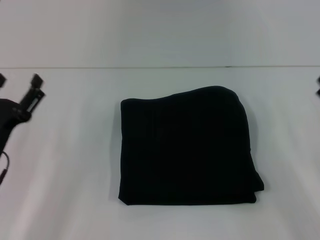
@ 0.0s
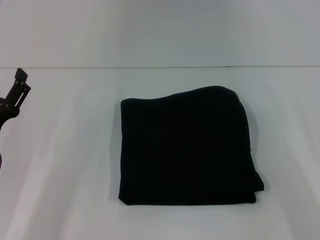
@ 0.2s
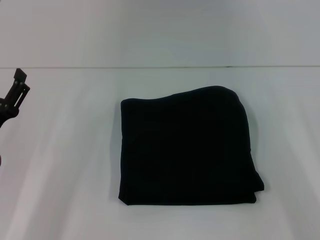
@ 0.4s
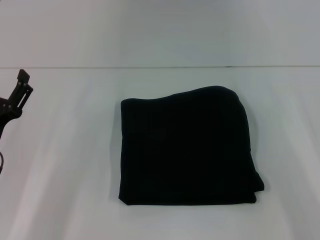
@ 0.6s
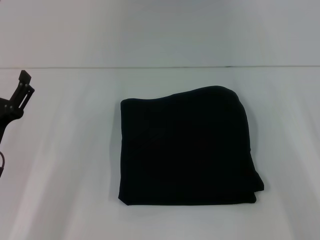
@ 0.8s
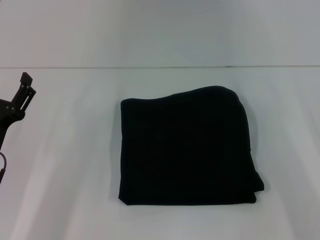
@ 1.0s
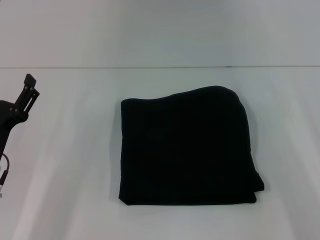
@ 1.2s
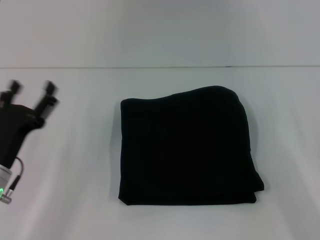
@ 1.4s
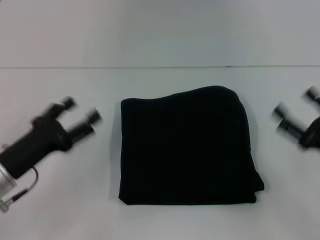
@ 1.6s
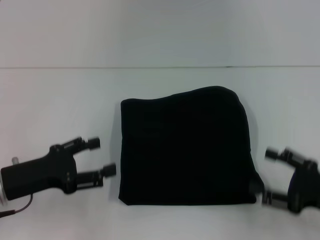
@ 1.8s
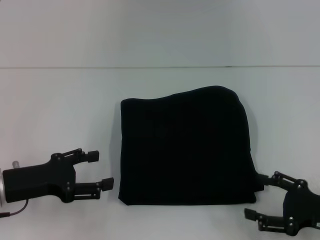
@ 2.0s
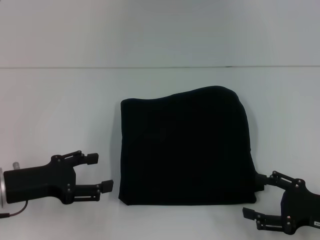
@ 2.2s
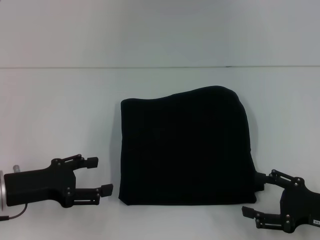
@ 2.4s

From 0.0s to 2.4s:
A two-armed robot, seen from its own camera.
From 0.0s to 1.2s: The grippers move only a little.
From 1.2s to 2.4s: The right gripper ends up about 5 cm from where it was.

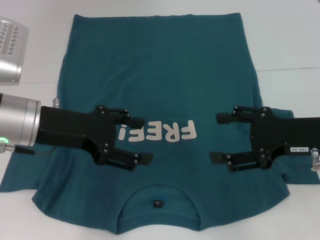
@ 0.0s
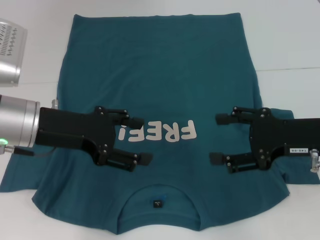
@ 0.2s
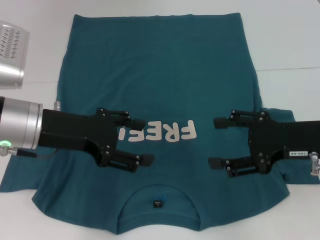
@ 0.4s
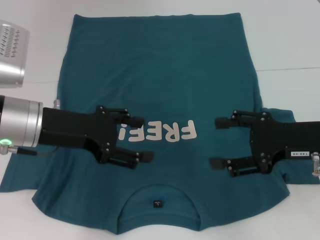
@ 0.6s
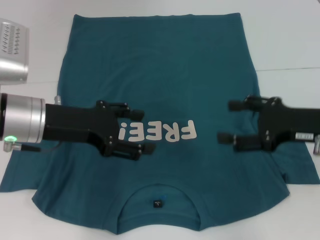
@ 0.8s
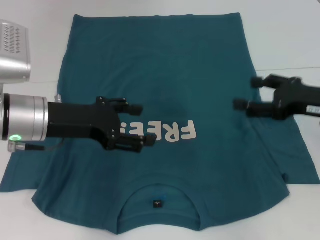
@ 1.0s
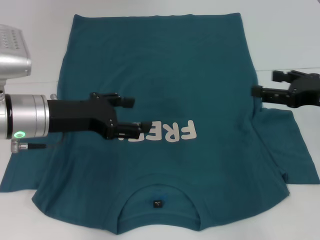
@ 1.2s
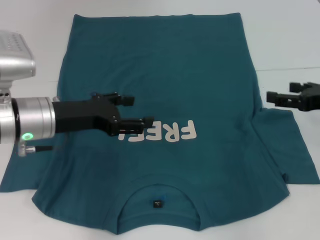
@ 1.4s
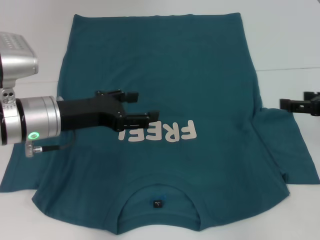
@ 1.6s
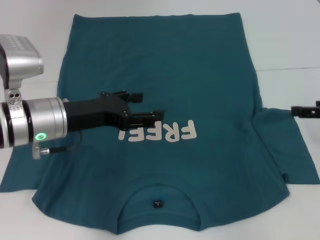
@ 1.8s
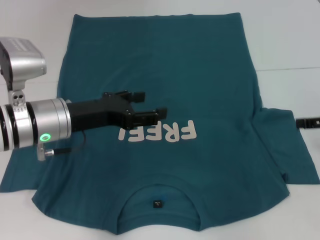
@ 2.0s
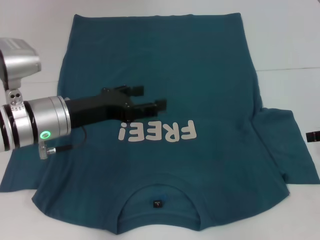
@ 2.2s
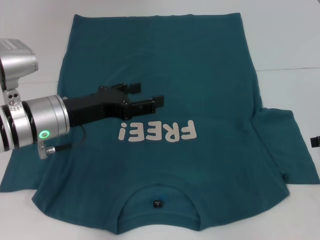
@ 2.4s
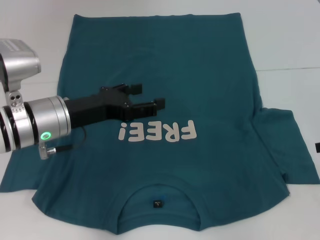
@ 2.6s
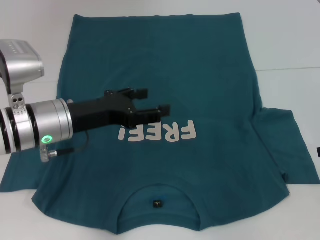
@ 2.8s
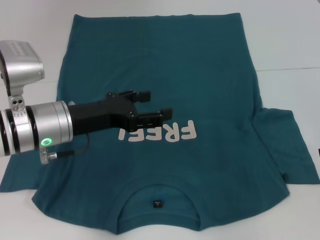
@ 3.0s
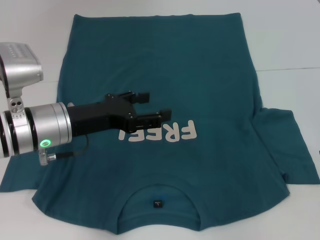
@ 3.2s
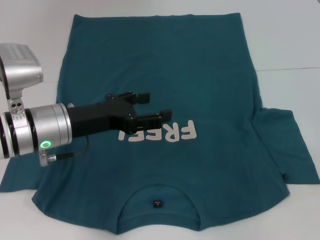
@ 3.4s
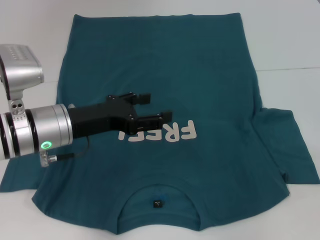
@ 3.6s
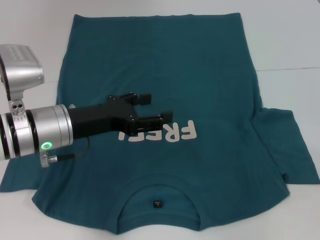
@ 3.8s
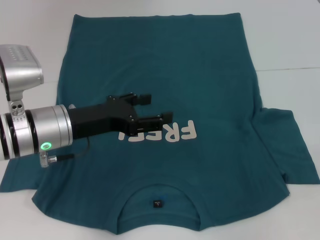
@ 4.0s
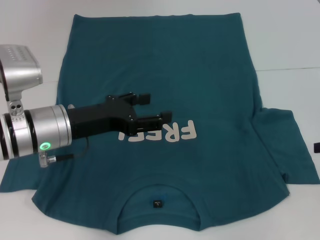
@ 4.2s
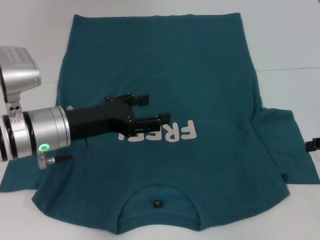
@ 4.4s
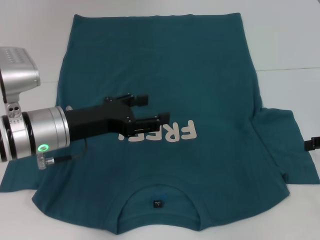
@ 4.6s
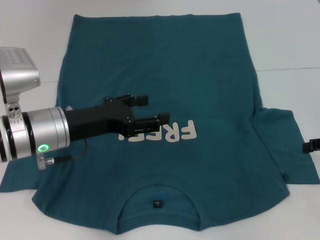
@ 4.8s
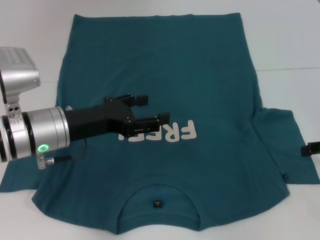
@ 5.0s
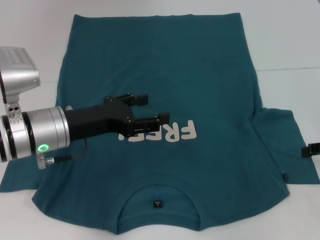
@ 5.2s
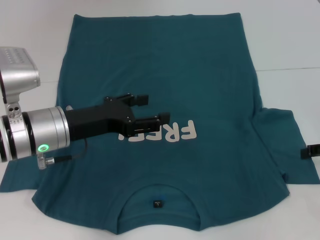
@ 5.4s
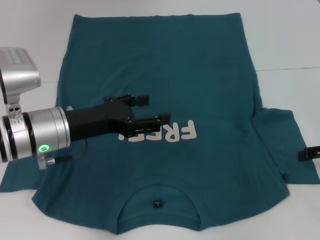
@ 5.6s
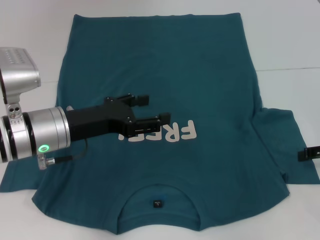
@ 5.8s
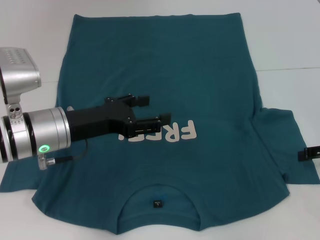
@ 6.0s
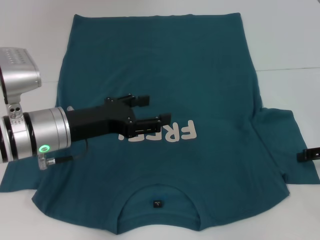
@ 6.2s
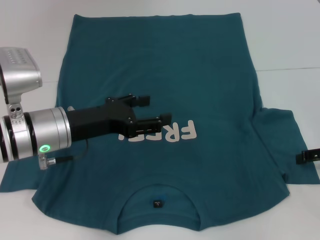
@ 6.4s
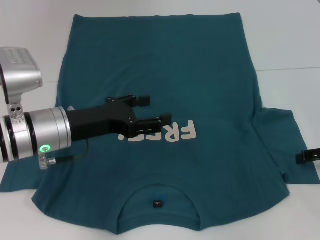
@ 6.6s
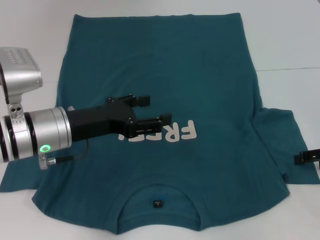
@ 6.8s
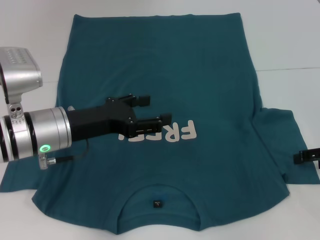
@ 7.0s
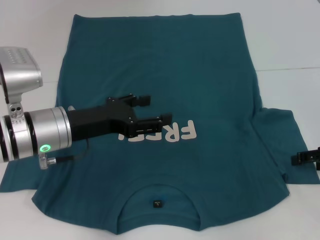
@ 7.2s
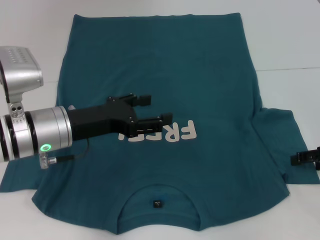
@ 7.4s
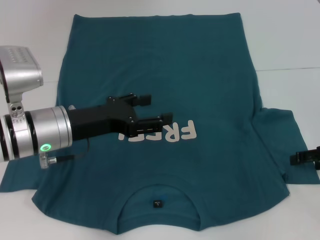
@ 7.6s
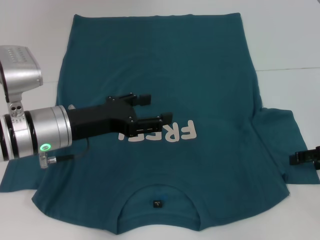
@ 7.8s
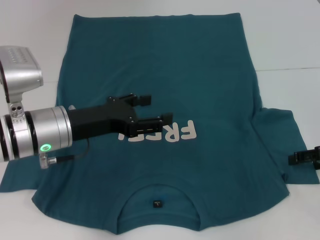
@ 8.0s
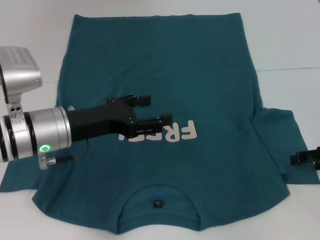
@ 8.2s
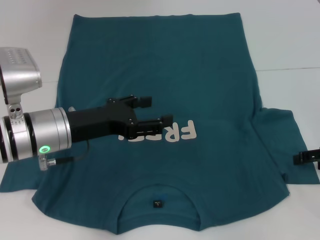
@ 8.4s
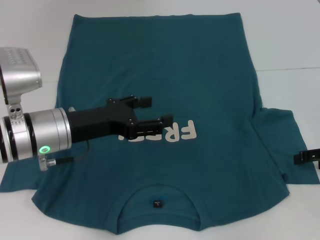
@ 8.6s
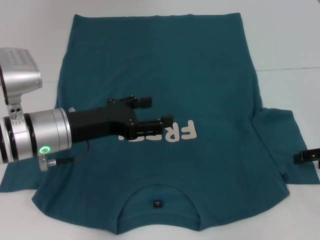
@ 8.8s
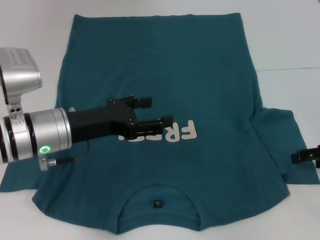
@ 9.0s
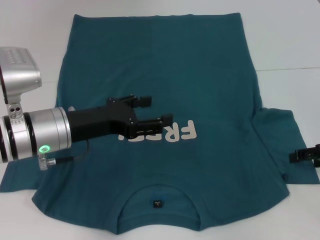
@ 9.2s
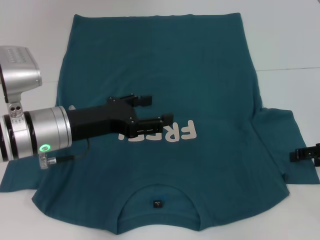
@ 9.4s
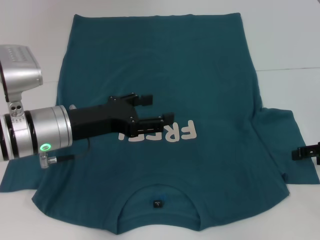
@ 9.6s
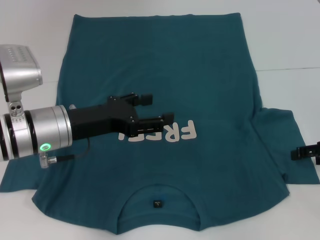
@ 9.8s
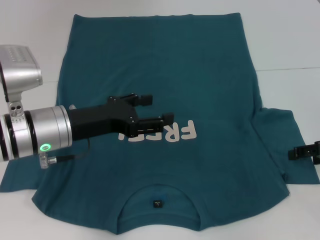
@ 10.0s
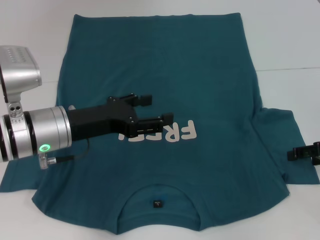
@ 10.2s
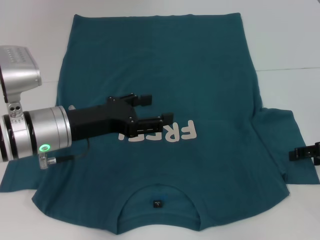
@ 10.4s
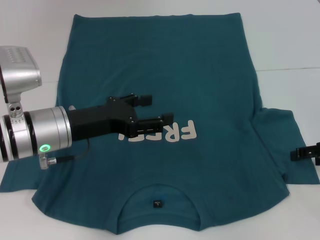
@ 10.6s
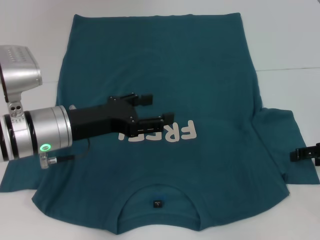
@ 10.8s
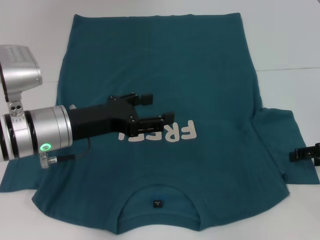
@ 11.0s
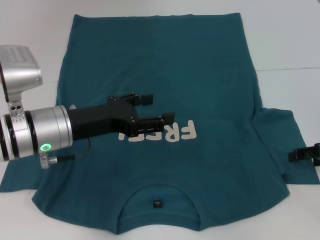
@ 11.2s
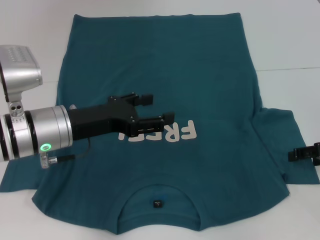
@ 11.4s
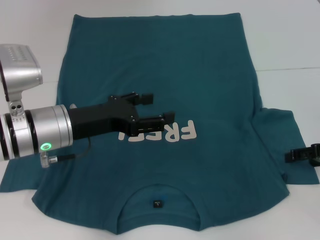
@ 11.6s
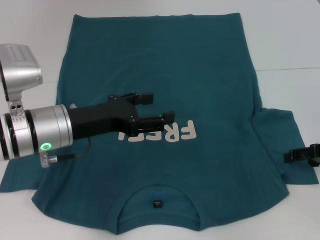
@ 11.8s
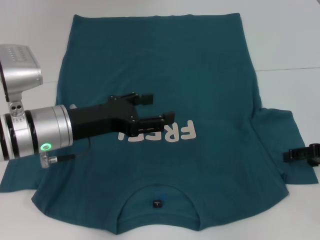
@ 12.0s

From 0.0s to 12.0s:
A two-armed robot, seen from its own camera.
From 0.0s to 1.6s: The right gripper heads to the right, covering some 10 cm.
From 3.0s to 7.6s: There are only small adjustments of the grippers.
From 7.6s to 12.0s: Neither gripper changes place.

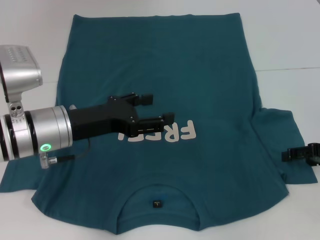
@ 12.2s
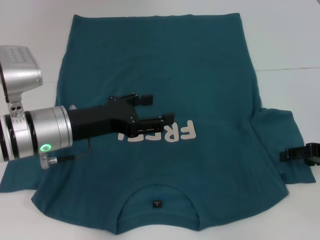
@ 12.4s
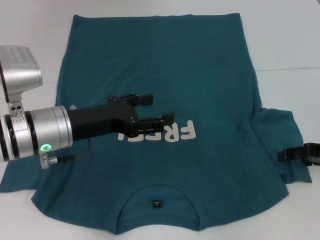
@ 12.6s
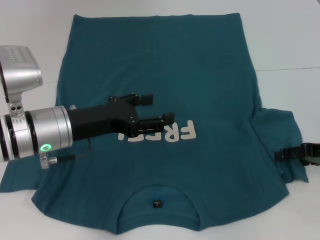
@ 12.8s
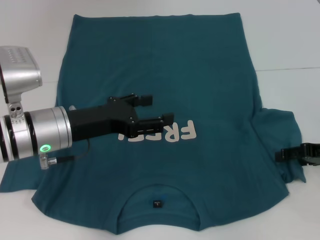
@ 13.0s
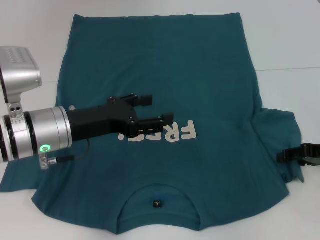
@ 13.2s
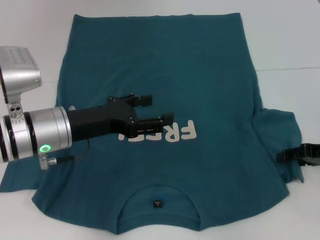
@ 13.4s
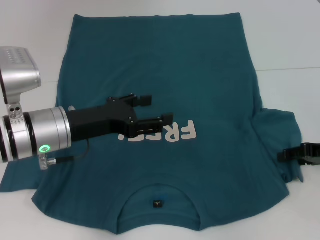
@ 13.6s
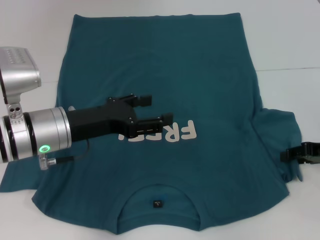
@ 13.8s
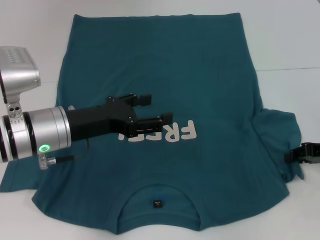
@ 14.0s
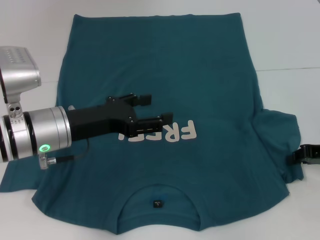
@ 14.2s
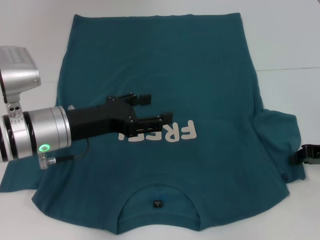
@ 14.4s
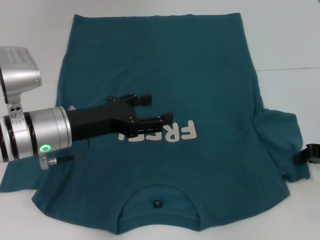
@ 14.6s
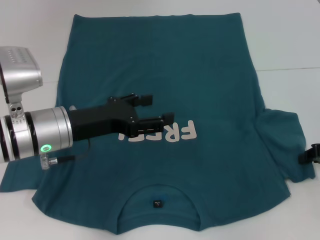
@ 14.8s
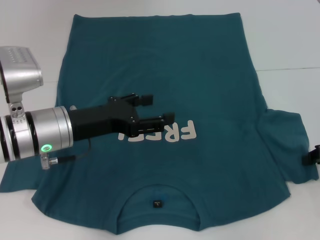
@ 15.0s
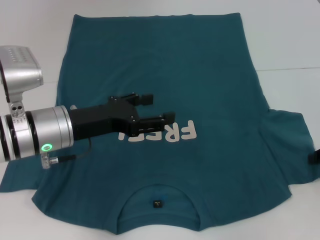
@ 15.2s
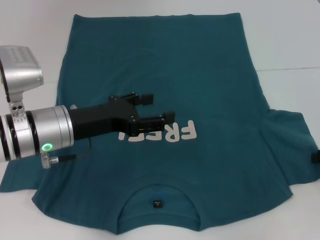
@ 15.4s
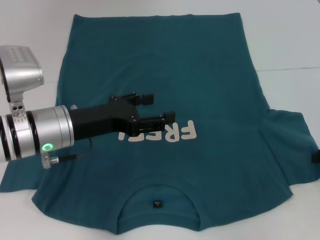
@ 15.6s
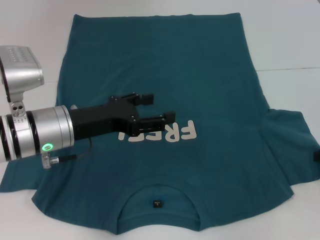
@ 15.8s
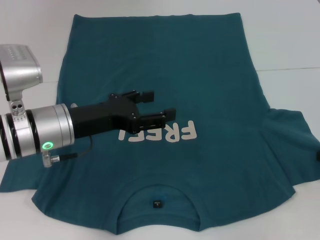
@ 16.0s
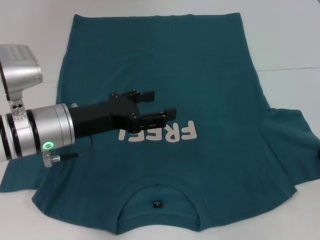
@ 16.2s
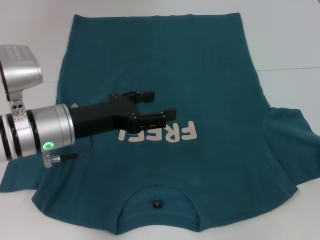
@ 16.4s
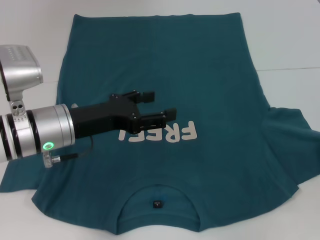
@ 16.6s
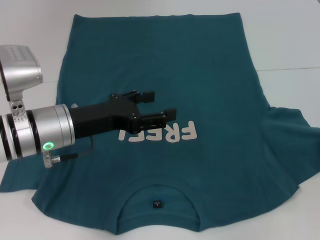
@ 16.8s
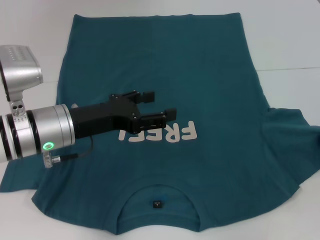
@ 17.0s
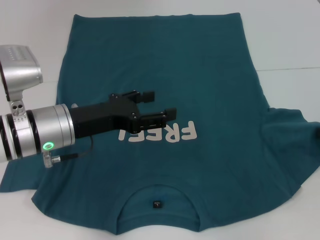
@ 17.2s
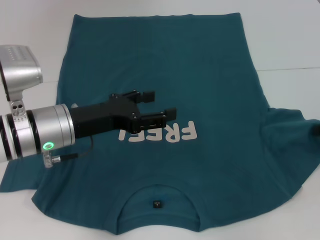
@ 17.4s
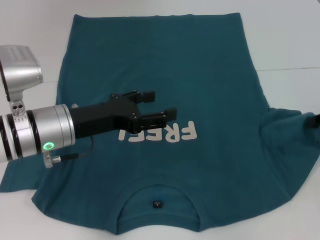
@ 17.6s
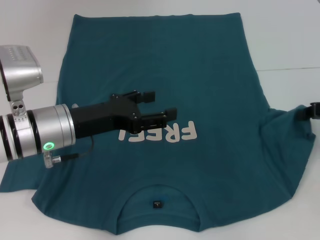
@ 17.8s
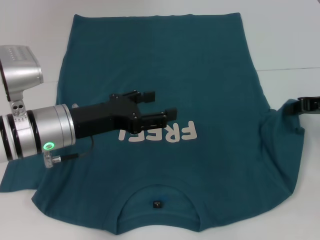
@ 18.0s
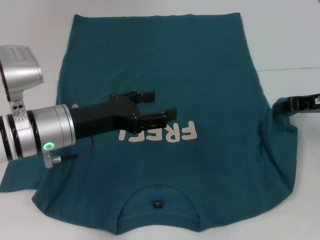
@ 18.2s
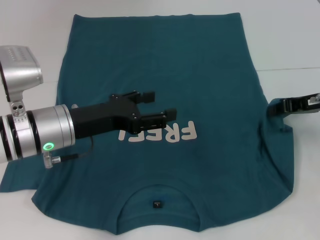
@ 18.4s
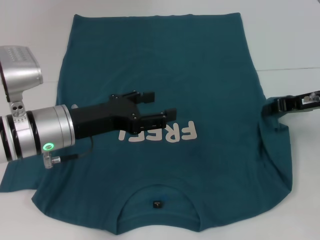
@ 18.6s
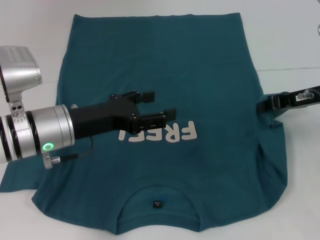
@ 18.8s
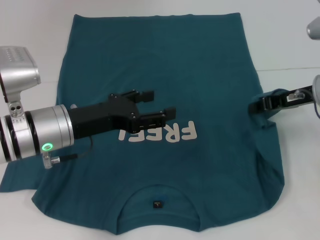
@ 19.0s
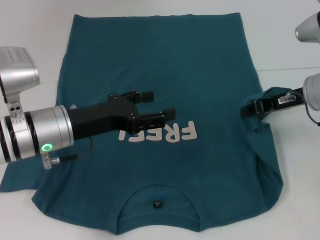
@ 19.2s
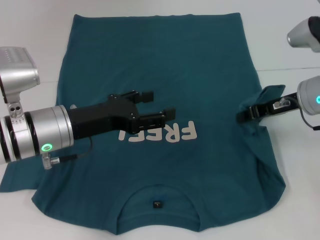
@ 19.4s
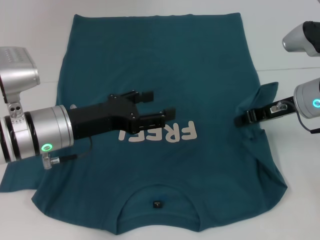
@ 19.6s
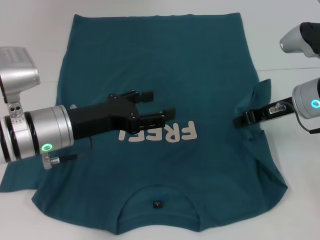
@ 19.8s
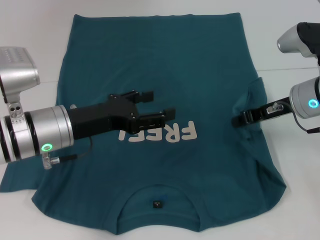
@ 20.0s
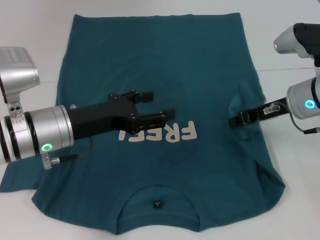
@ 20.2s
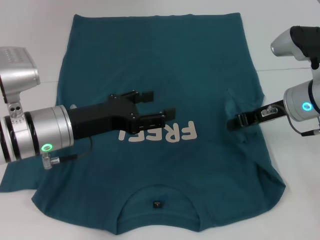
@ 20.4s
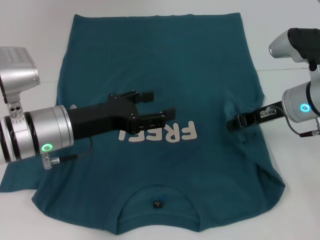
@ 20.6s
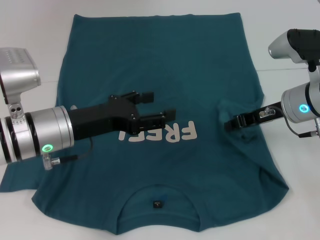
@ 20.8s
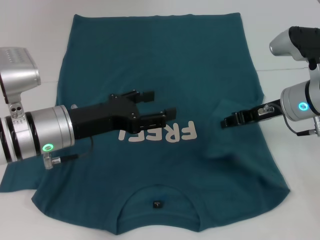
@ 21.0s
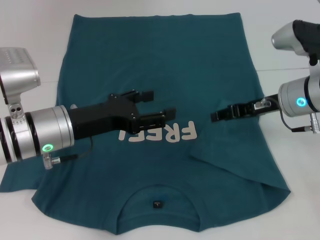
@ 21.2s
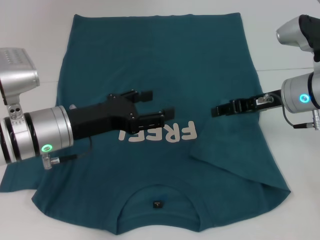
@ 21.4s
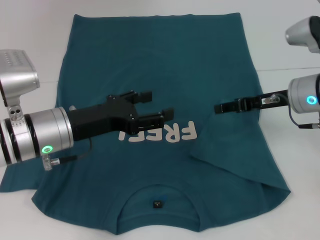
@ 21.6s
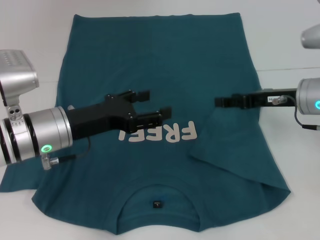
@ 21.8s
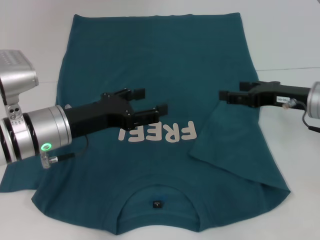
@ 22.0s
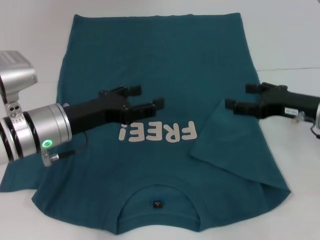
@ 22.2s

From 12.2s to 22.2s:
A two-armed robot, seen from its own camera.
Step, from 12.2s to 21.0s: Fold the bottom right sleeve to the right.
From 12.2s to 13.6s: Neither gripper changes place.
From 13.6s to 15.0s: The right gripper closes up.
From 15.0s to 16.4s: There are only small adjustments of the grippers.
From 16.4s to 18.0s: The right gripper moves to the left, roughly 5 cm.
From 18.0s to 19.4s: The right gripper goes approximately 10 cm to the left.
From 19.4s to 20.8s: There are only small adjustments of the grippers.
From 20.8s to 22.2s: The right gripper ends up some 5 cm from where it was, and opens.
